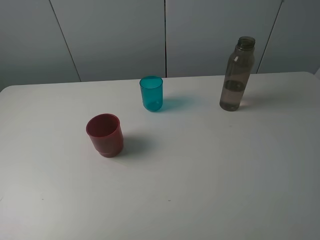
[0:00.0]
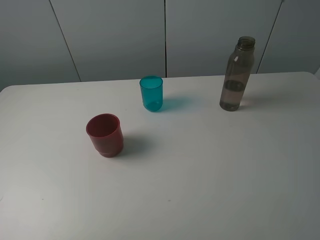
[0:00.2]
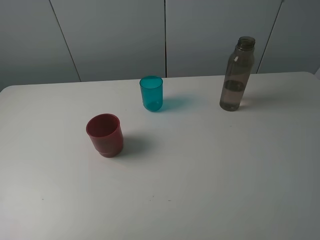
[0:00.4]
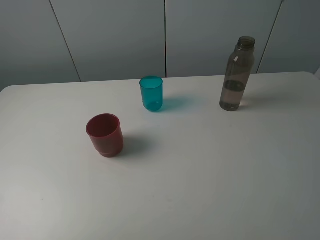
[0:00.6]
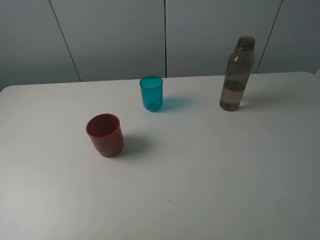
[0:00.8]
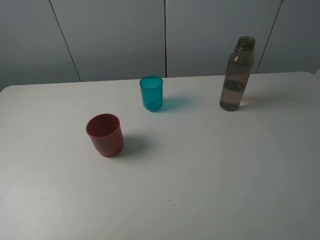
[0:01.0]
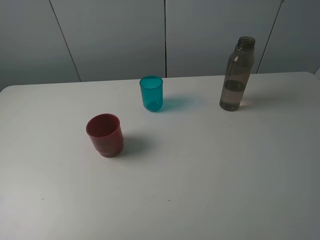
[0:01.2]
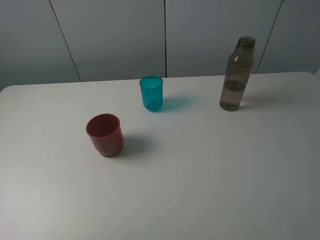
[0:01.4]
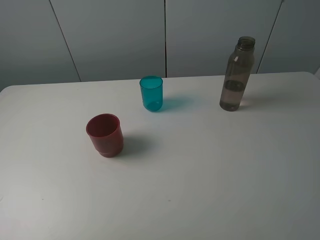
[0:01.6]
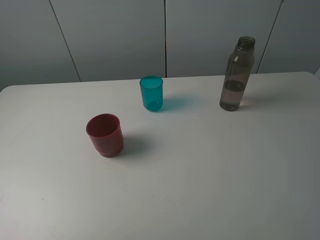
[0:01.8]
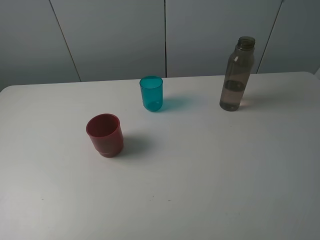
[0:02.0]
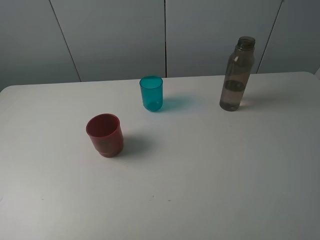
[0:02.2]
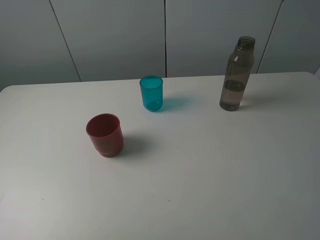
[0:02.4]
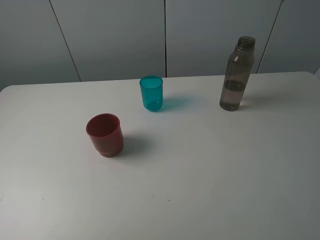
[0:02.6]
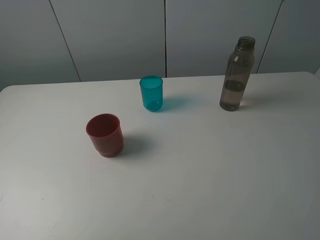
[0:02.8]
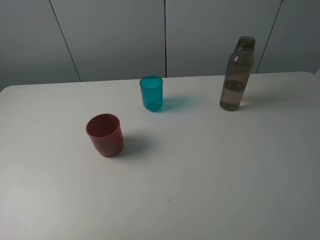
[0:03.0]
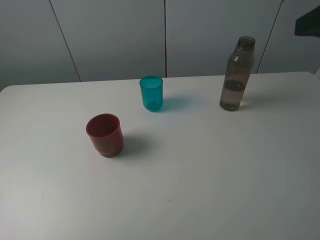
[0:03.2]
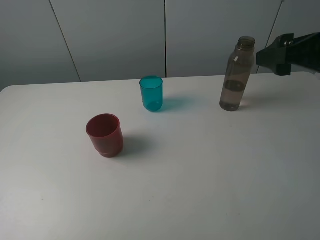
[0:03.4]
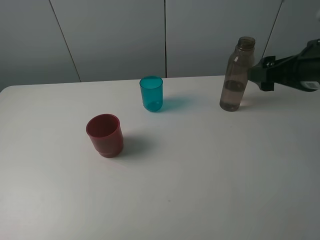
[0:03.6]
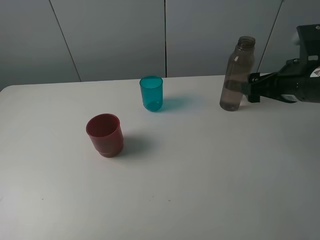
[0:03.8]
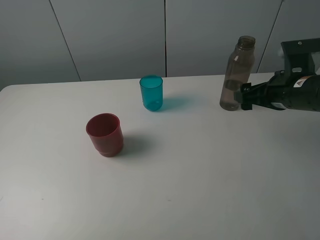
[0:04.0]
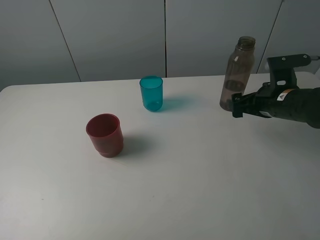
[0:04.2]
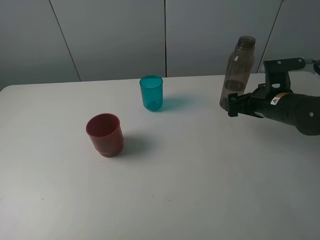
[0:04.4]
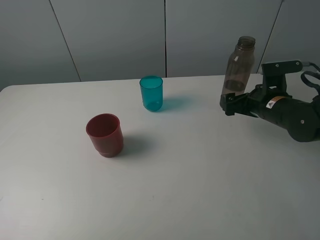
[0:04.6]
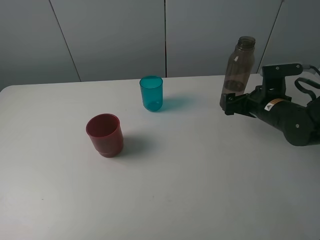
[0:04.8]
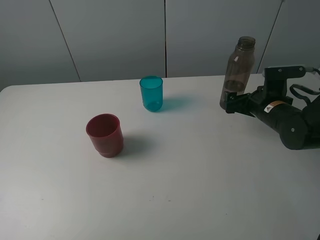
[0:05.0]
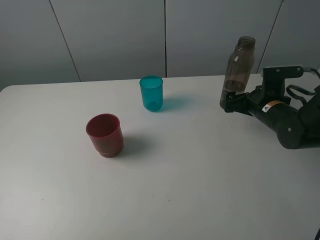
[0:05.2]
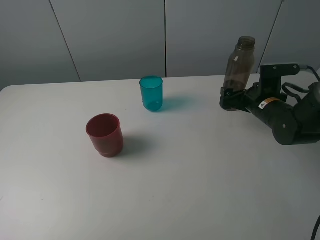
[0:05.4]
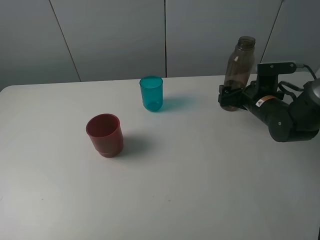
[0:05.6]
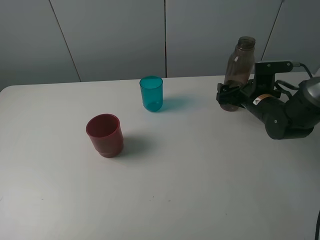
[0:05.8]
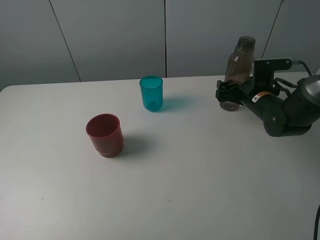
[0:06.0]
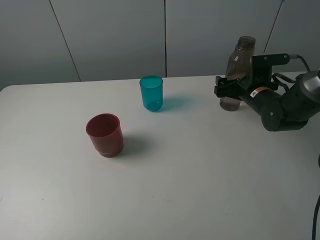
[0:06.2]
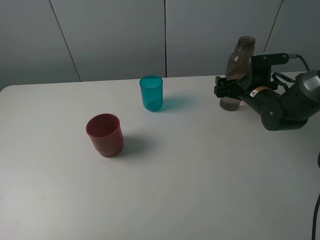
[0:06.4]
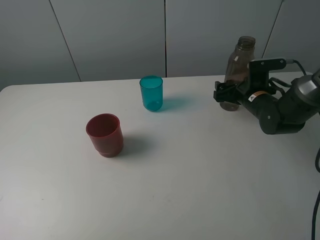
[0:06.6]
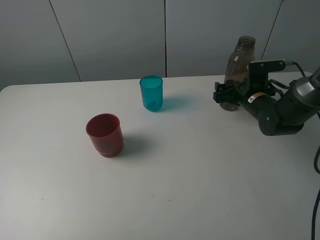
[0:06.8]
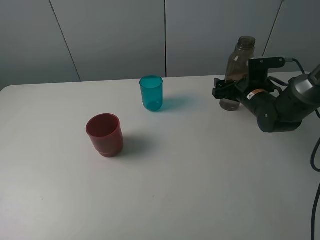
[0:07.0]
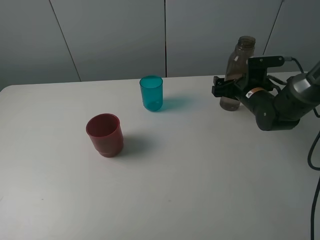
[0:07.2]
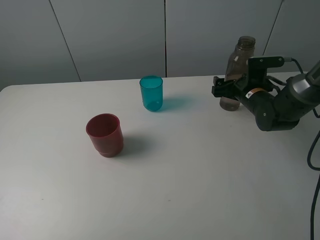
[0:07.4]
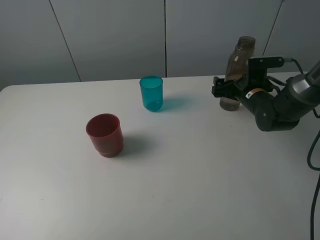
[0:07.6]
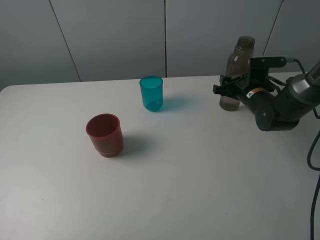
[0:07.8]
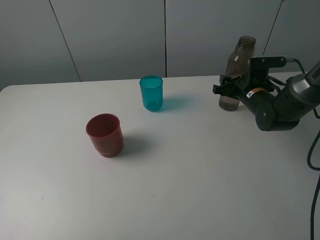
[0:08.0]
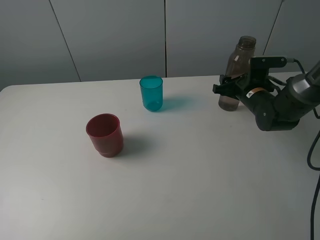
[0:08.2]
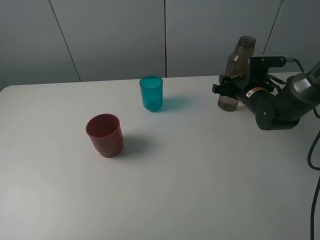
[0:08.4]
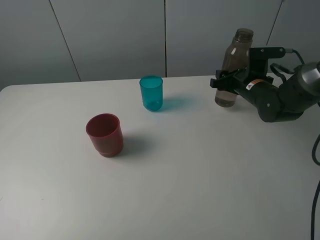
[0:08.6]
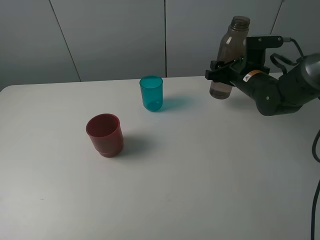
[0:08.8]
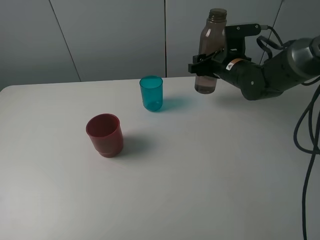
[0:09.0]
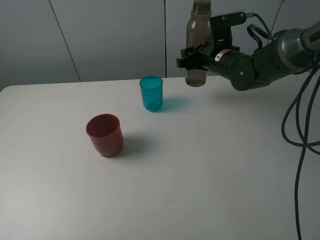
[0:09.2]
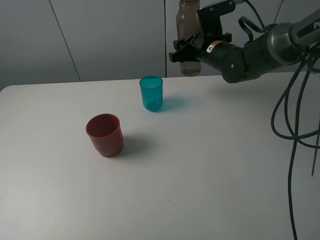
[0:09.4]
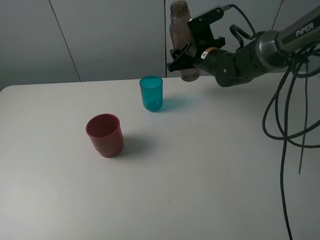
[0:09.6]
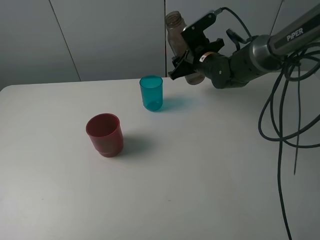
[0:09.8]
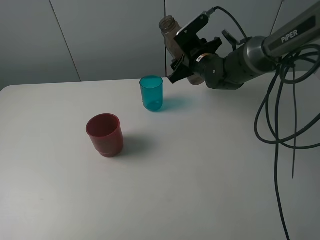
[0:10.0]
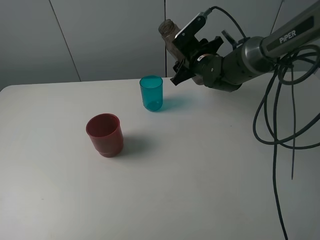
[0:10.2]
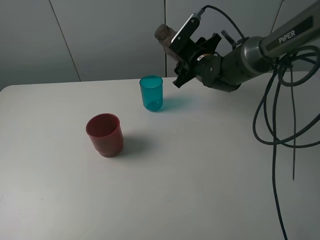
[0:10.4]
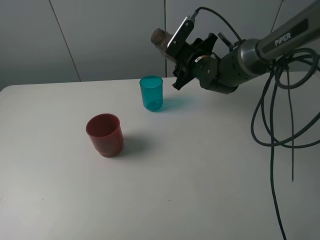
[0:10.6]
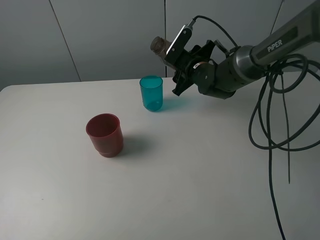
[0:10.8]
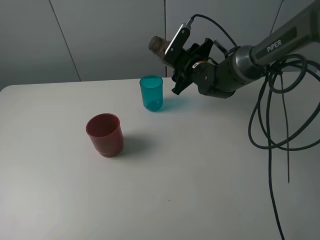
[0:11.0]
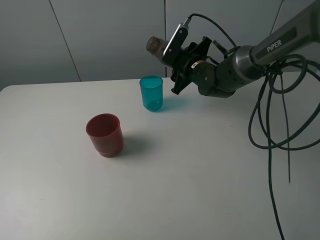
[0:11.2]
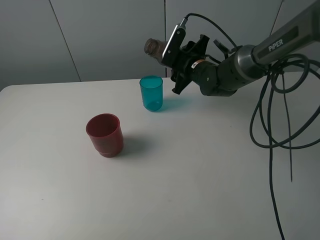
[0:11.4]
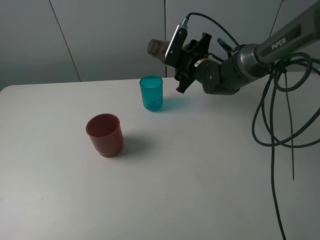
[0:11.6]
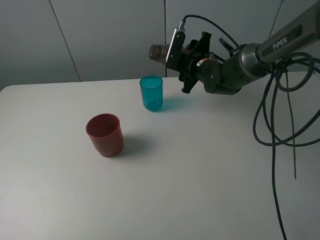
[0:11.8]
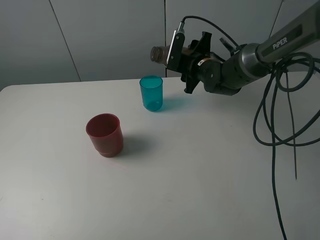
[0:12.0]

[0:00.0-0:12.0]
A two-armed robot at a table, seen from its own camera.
Task of the whole recording: pick up the bottle and pour water into the cup, then pick up the cup containing water and pour it into another cup.
Step, 0:00.0 to 0:08.0: Grasp the brown bottle with the right gripper.
0:00.0 to 0:01.6: Both grippers stay put.
0:03.0 to 0:04.4: The right gripper is displaced downward and forward by about 30 cm.
0:04.4 to 0:06.0: The right gripper shifts approximately 5 cm forward.
0:06.0 to 0:07.6: The grippers move only a little.
0:07.6 to 0:09.0: The right gripper shifts some 10 cm upward and to the left, and closes up.
0:09.0 to 0:10.4: The right gripper heads to the left, covering some 5 cm.

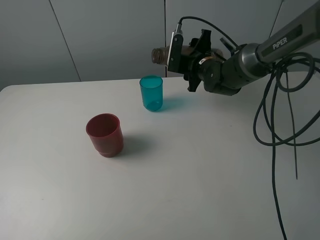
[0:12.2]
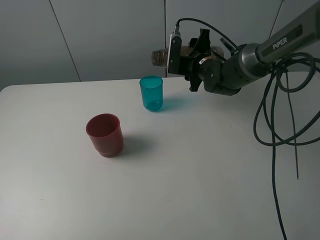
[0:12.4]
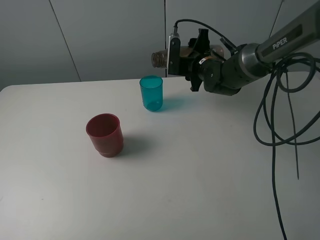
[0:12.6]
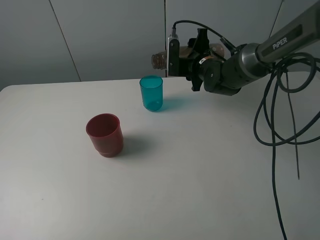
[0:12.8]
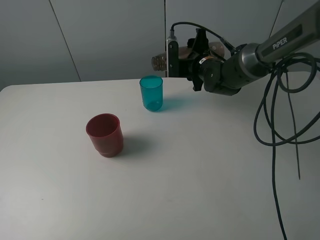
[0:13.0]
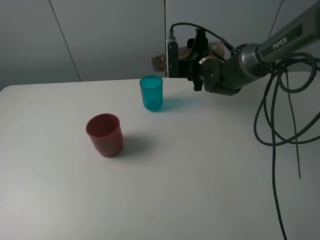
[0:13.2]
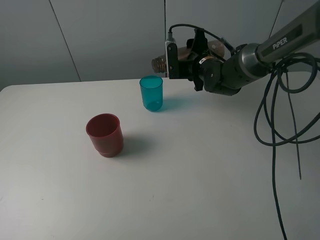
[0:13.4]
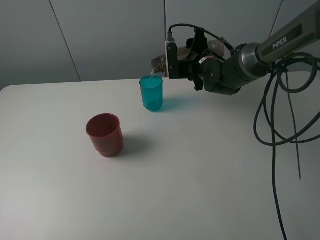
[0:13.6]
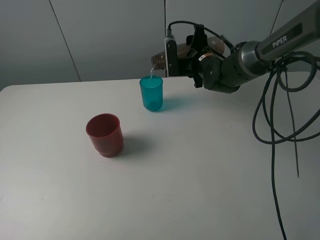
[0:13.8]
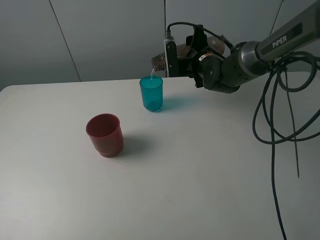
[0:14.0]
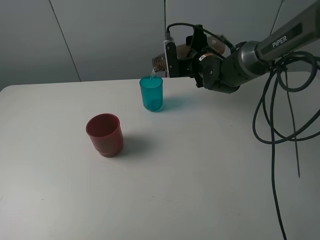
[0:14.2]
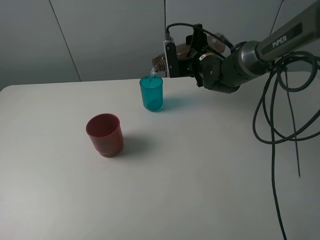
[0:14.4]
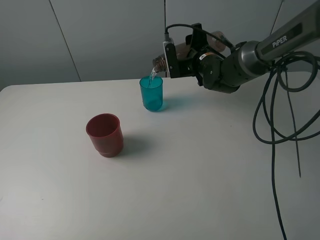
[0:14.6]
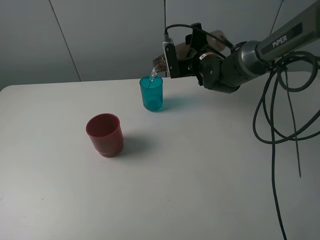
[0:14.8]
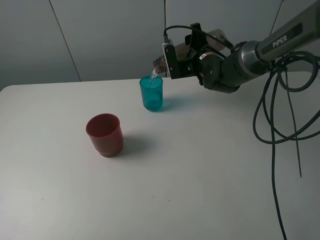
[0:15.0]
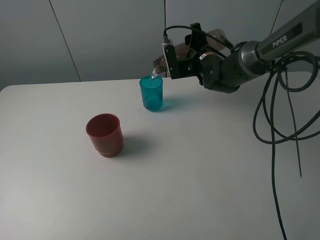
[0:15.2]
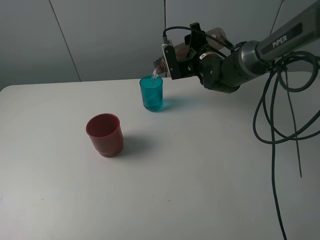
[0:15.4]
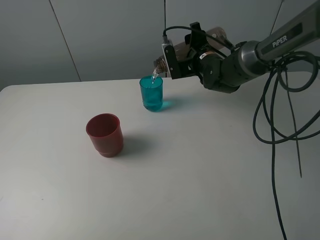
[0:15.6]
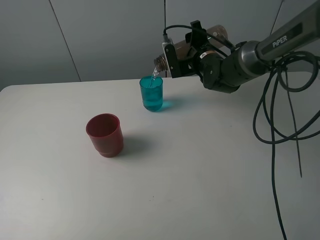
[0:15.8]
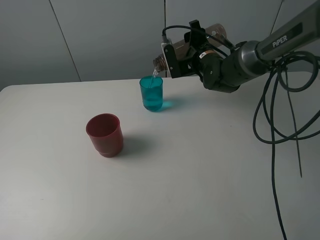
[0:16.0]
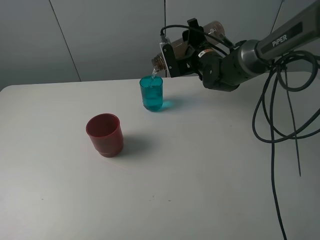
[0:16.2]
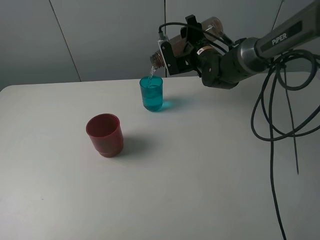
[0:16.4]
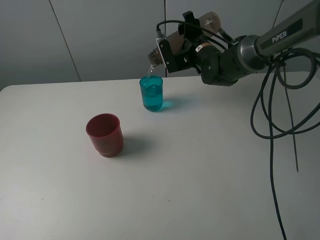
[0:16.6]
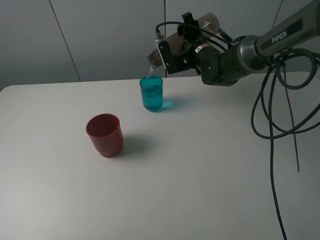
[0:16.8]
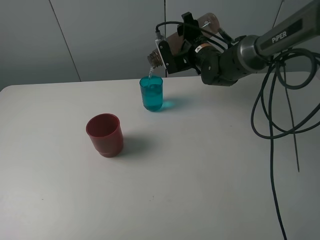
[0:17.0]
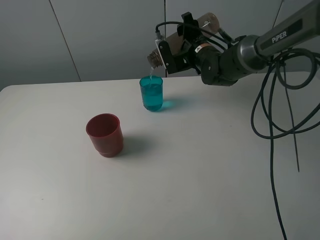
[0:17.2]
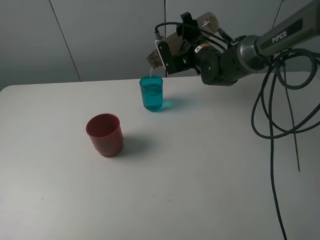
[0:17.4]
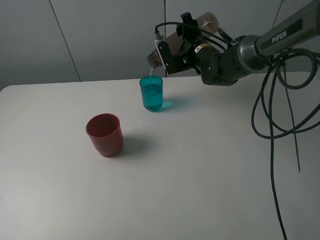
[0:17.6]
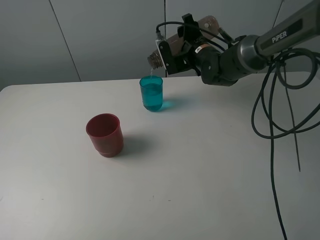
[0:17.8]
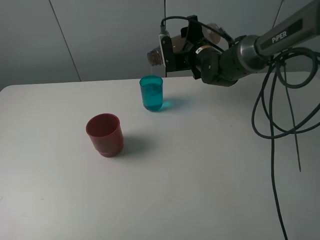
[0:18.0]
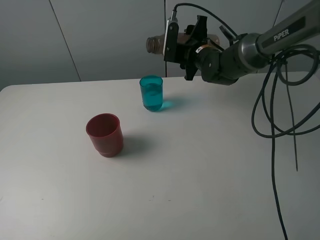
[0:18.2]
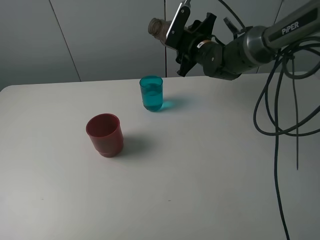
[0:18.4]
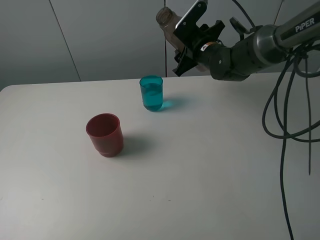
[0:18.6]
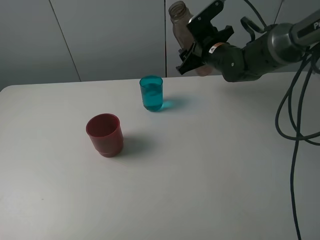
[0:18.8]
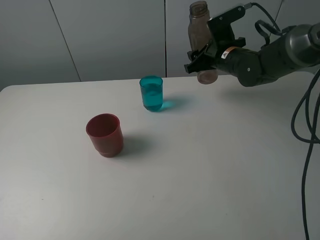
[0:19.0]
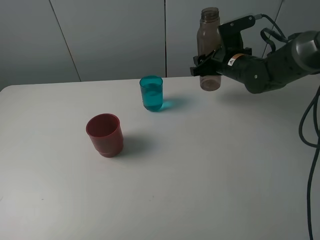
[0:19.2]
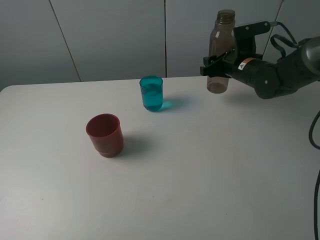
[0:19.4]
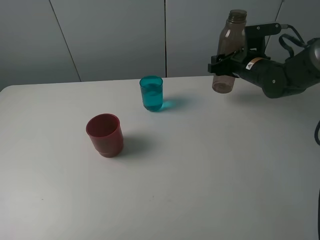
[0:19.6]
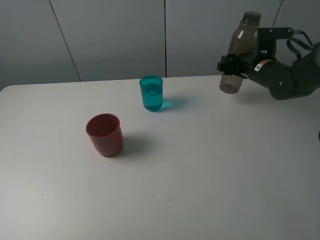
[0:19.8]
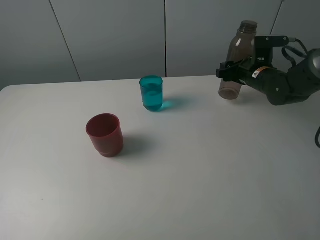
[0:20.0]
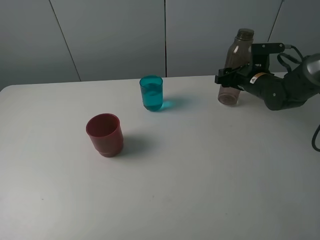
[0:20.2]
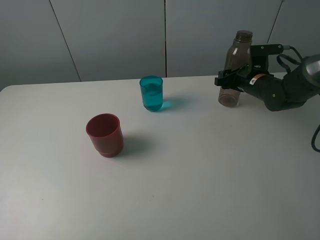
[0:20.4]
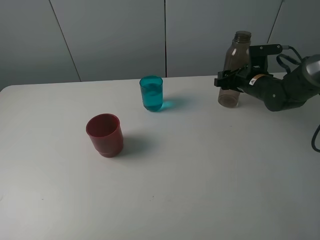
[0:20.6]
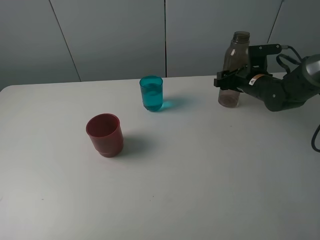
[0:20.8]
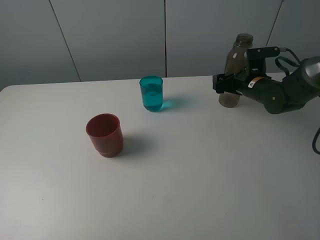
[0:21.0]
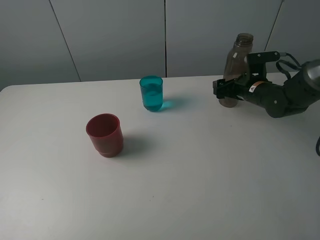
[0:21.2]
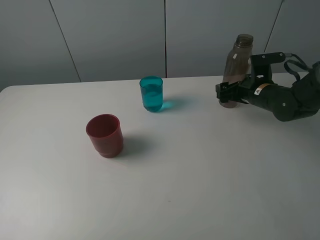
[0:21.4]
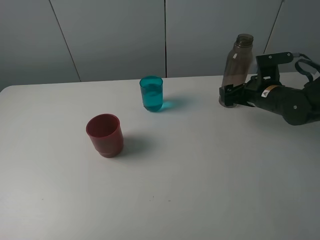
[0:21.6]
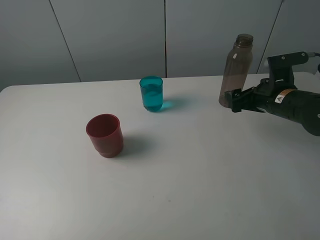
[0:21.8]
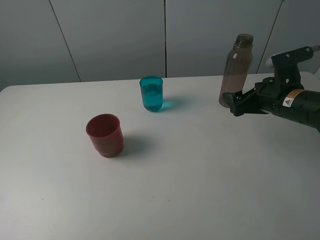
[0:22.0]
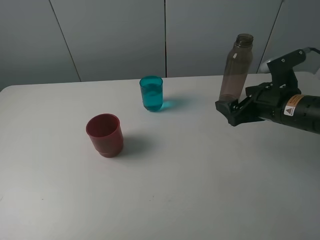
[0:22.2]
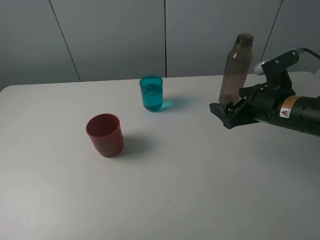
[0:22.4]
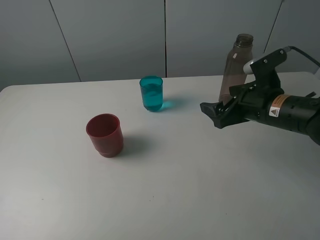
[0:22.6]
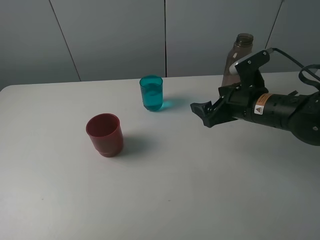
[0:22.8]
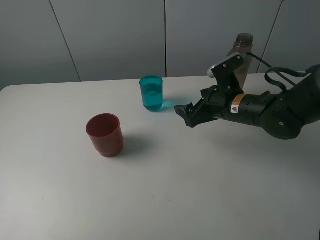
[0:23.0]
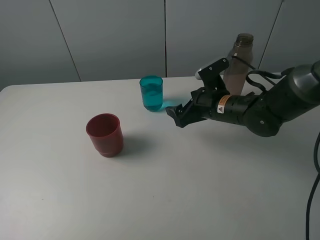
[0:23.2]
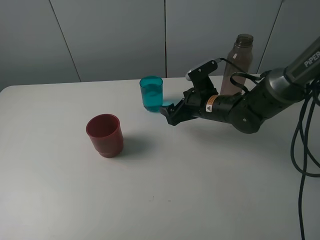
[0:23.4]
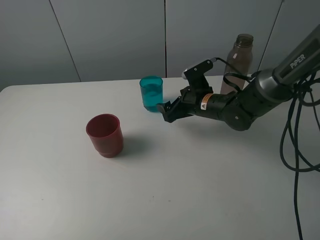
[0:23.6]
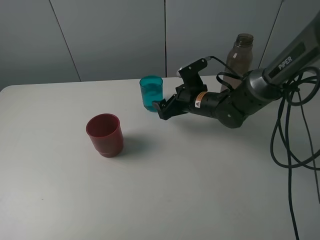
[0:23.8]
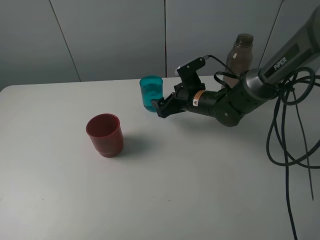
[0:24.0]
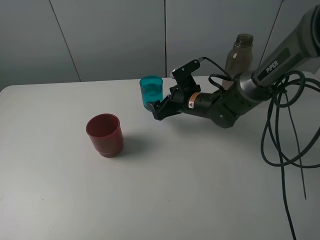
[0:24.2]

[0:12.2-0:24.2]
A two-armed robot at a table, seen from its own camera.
Task of the whole recording: pick up the bottle and pour water into the cup, then pick up the cup containing water and pour it into another cup.
Step, 0:12.2 to 0:18.2: Pour water from brown bottle to blue cup with the right gripper.
Step, 0:18.4 to 0:21.2: Place the brown bottle with the right gripper.
0:12.2 to 0:13.8: There are only small adjustments of the grippers.
0:13.8 to 0:16.6: The grippers make only small movements.
0:18.2 to 0:19.8: The right gripper moves to the right, about 15 cm.
0:19.8 to 0:21.2: The right gripper opens up.
0:21.2 to 0:22.6: The right gripper heads backward and upward, covering approximately 15 cm.
0:22.6 to 0:24.2: The right gripper shifts about 20 cm to the left, forward and downward.
